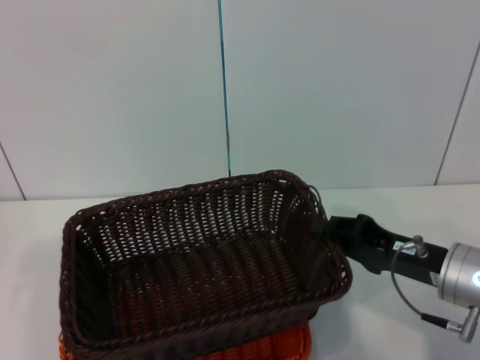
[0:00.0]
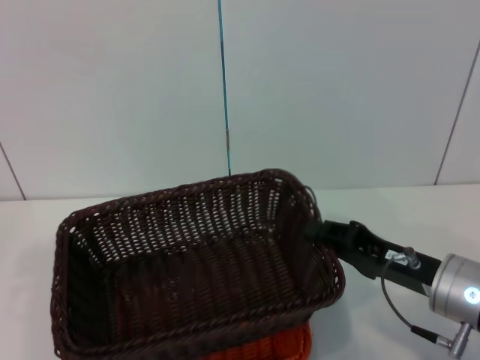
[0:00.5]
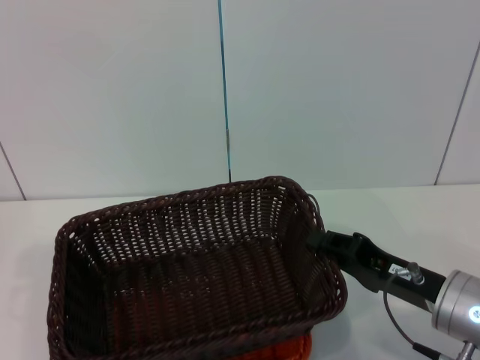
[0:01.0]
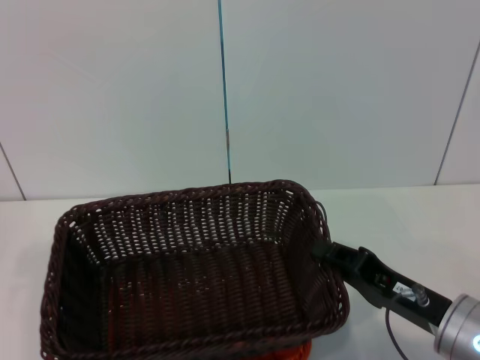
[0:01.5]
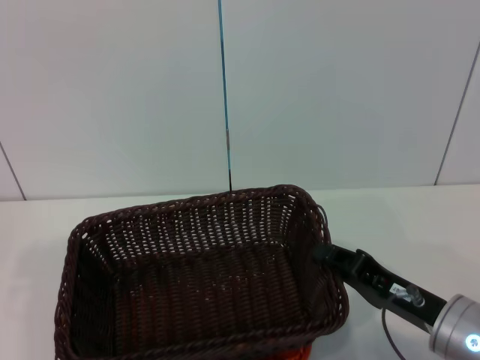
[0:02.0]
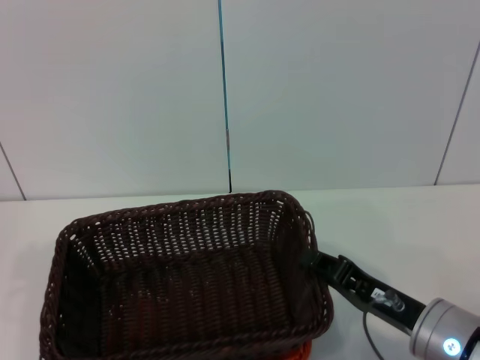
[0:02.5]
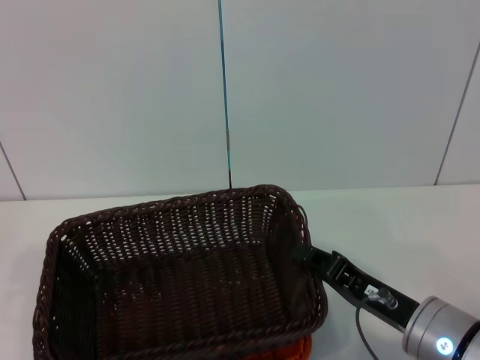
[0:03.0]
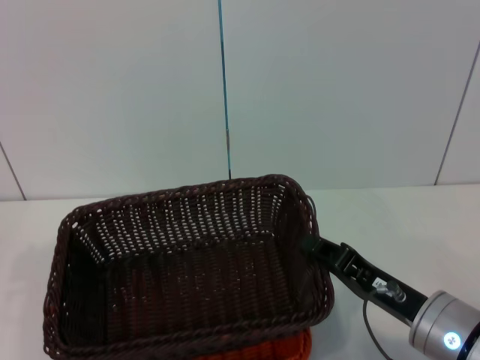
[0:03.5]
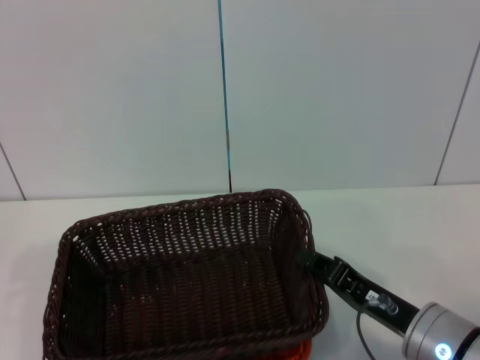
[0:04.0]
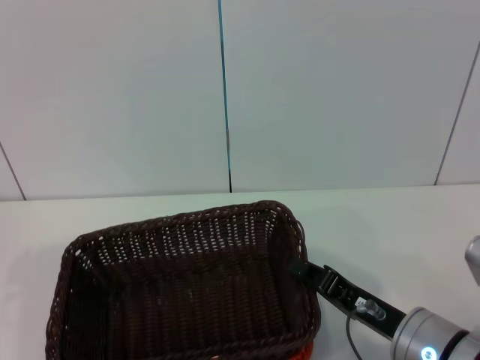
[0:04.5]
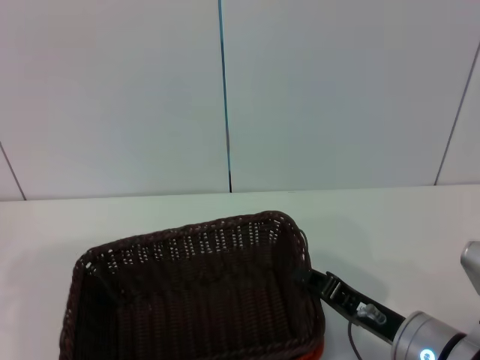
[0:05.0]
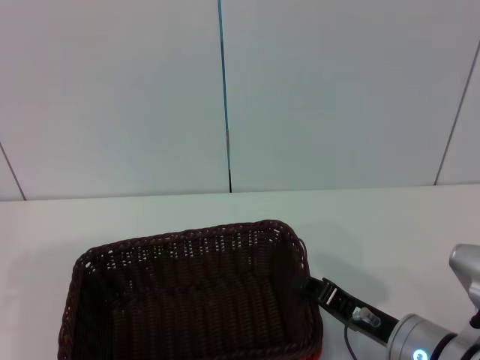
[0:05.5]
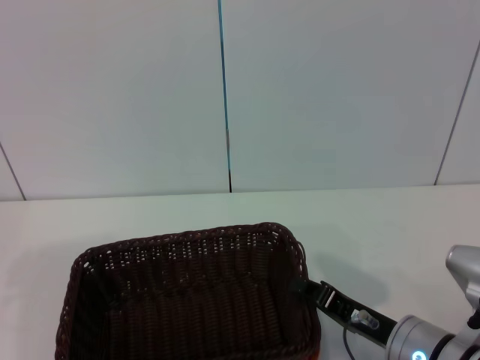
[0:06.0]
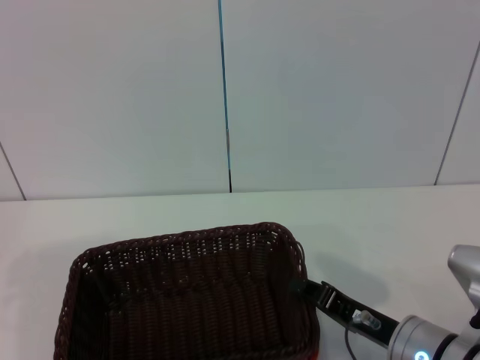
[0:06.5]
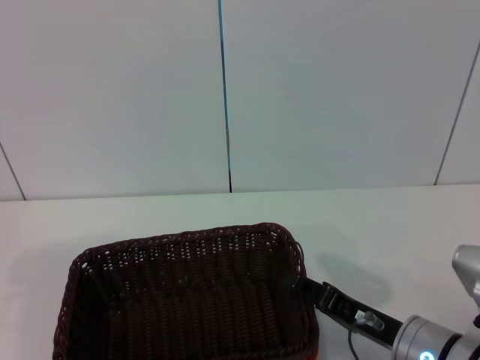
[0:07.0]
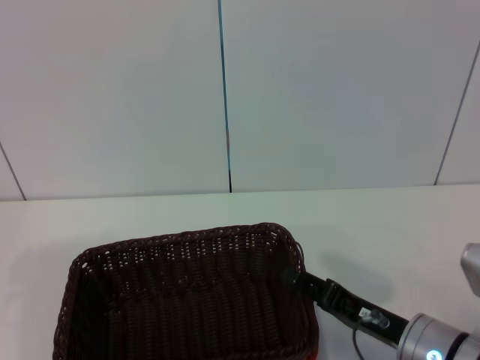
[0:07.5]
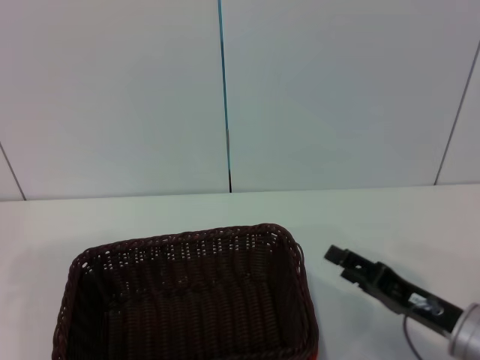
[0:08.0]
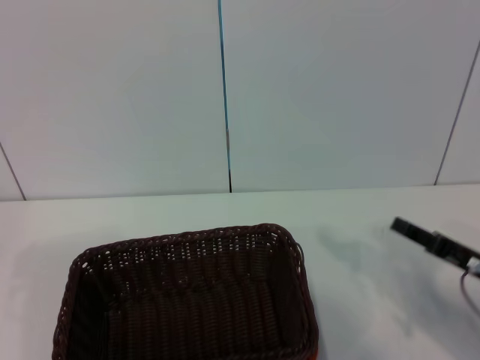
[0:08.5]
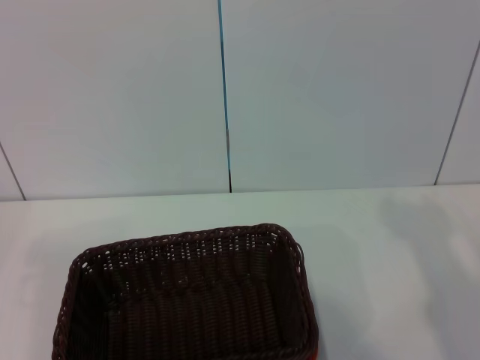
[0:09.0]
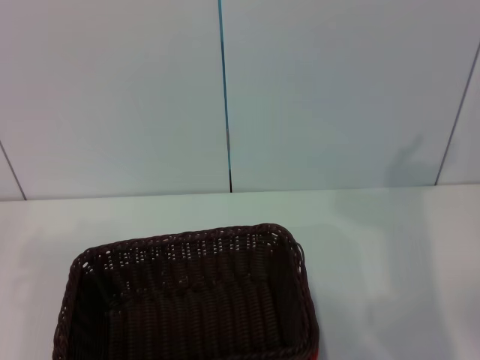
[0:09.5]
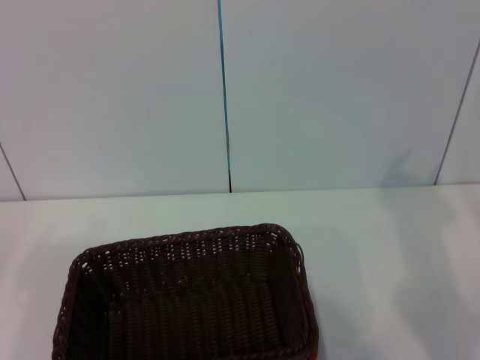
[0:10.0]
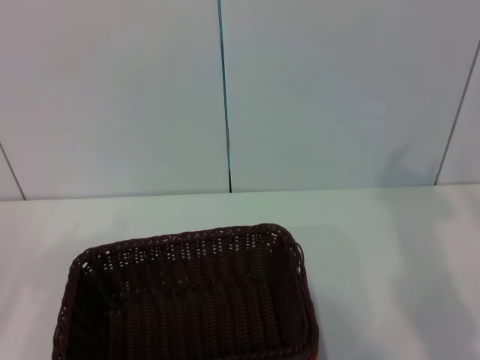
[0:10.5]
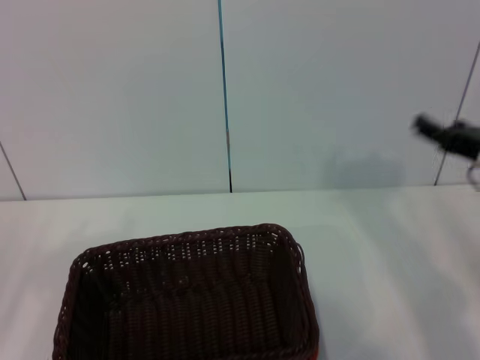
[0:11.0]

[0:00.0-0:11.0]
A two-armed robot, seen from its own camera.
Step, 0:00.0 to 0:07.5: Place the dark basket on the light basket with the right gripper.
0:00.0 to 0:02.0: The right gripper travels backward by some 5 cm.
0:02.0 to 0:05.5: The grippers make only small movements.
0:05.5 to 0:07.5: The right gripper opens its fingers.
0:07.5 to 0:09.0: The right gripper is displaced to the right and upward by roughly 15 cm.
0:09.0 to 0:11.0: The right gripper ends up about 10 cm from where it was.
